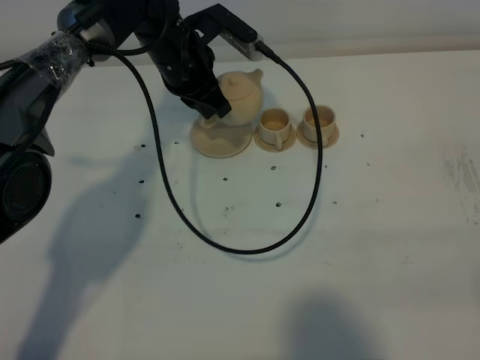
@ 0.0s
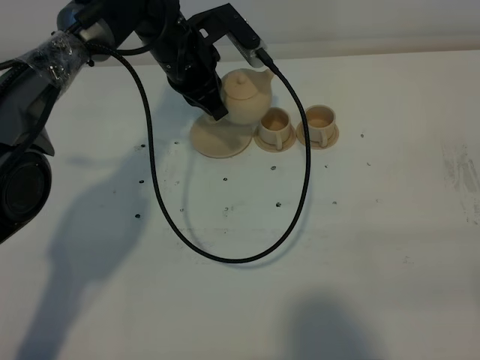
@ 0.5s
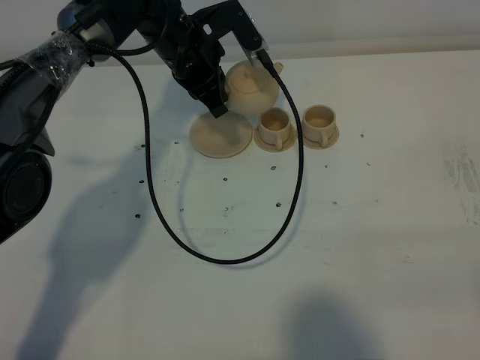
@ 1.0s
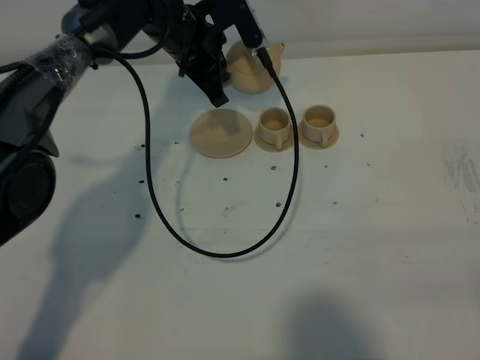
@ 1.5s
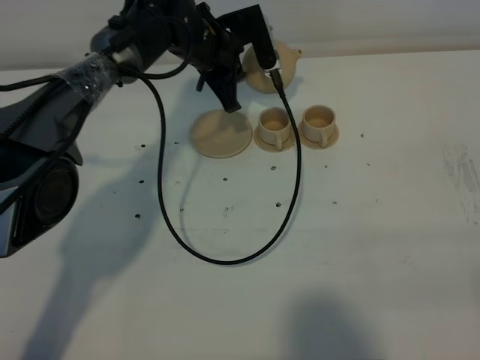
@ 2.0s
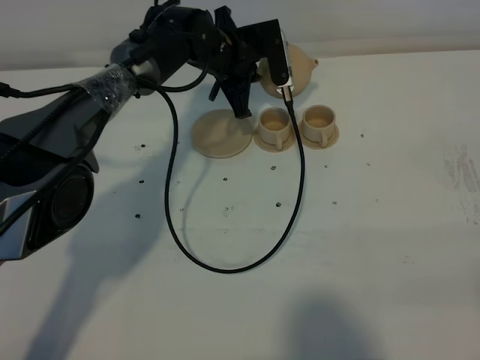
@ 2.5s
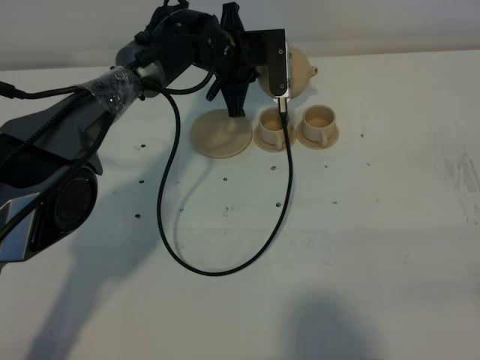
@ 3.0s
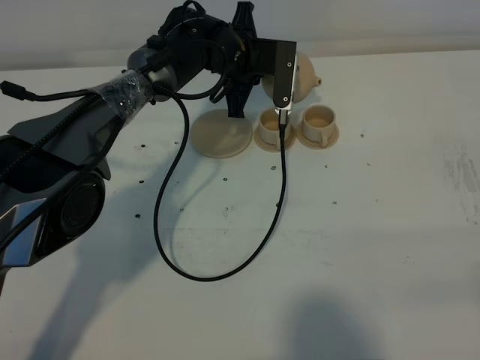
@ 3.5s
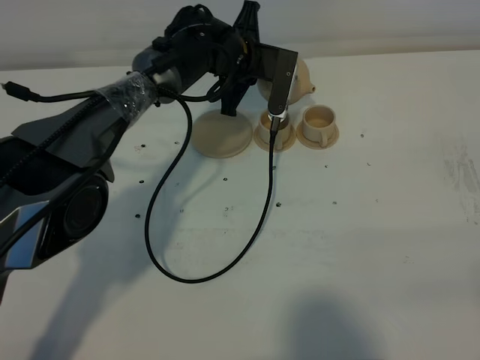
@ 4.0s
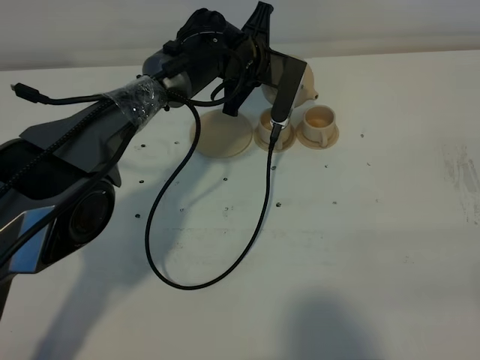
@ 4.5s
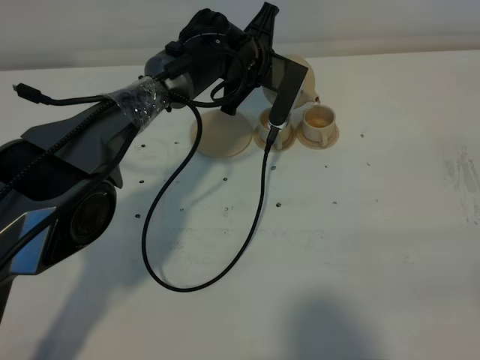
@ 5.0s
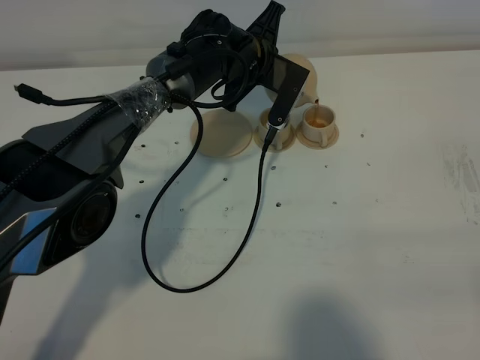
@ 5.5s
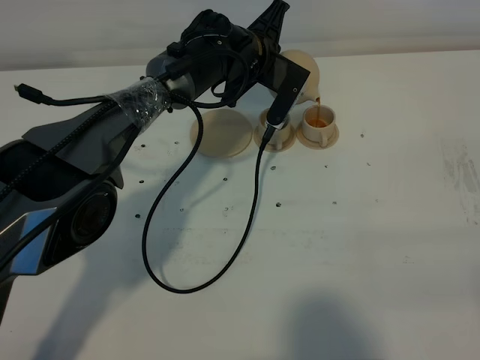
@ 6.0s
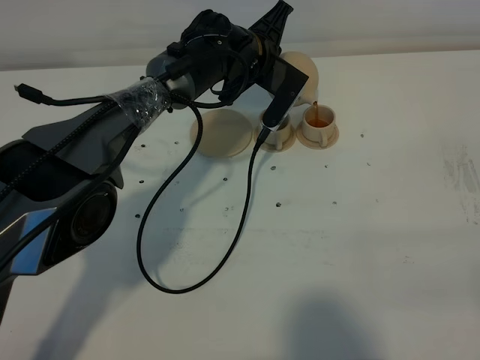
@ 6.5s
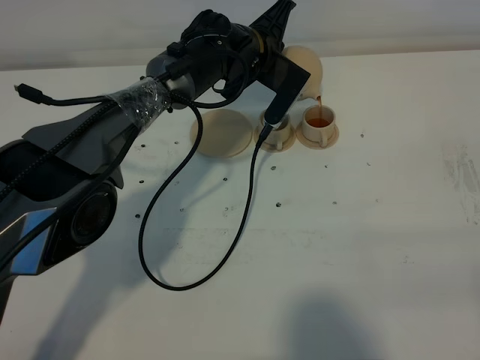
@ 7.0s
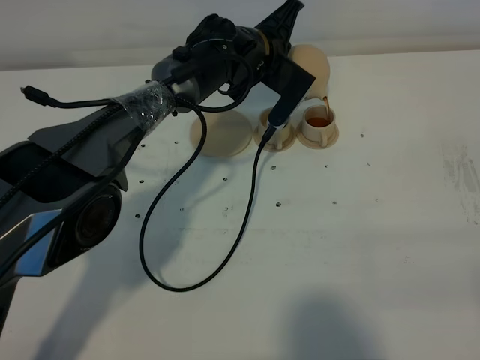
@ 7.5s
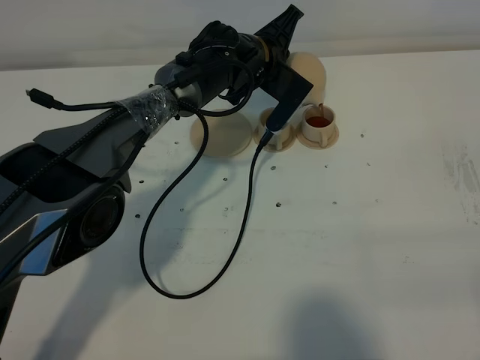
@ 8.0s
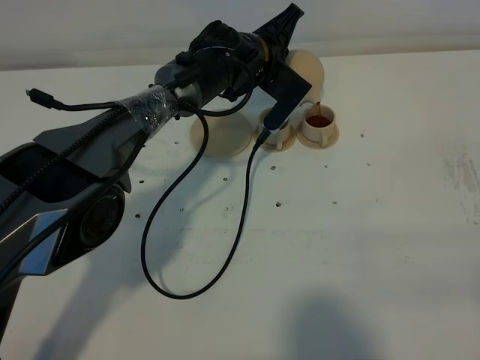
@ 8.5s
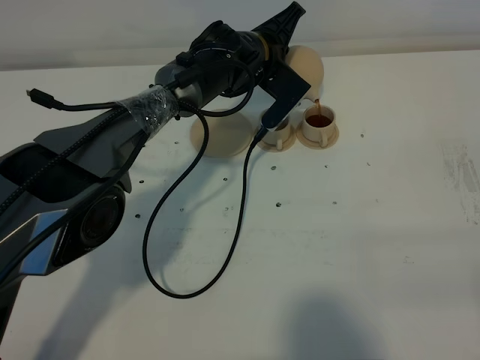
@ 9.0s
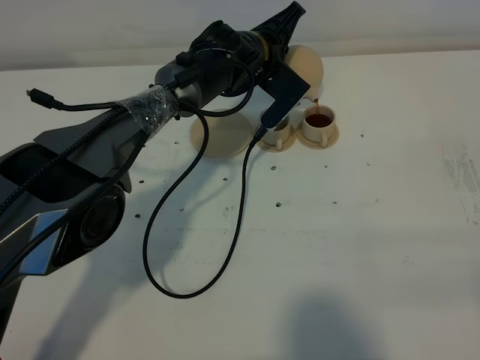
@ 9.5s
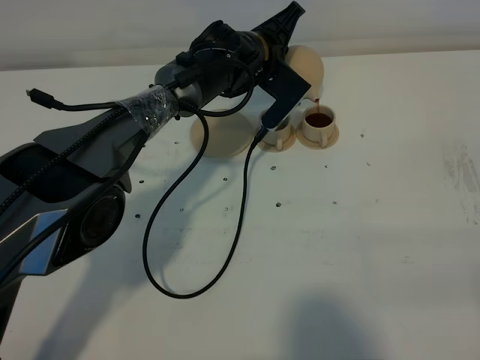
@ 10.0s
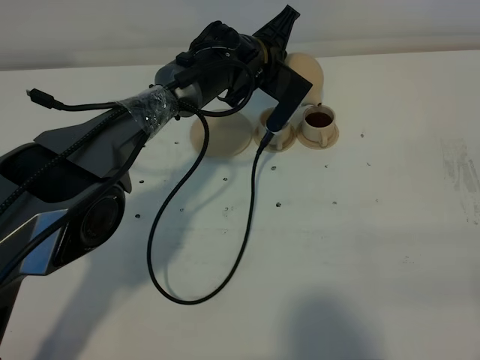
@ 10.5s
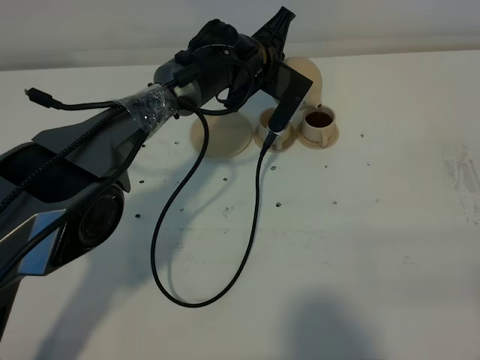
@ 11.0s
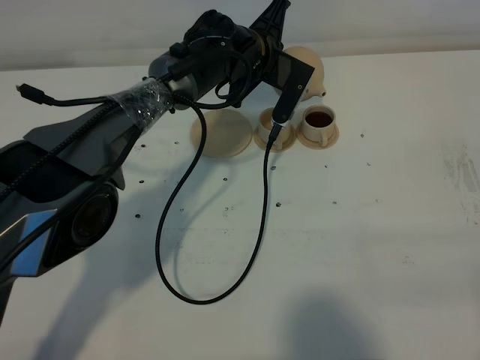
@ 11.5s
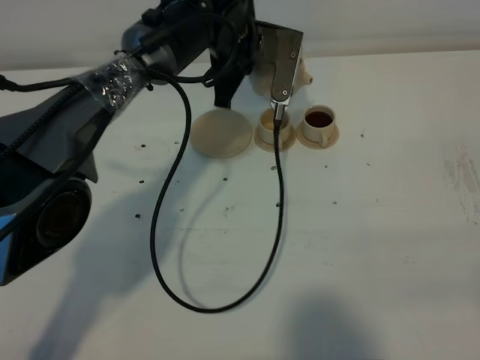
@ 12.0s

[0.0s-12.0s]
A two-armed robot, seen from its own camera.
Task of the whole recording: grasp the brown teapot and pour the tea into the two brown teacups one by one, put the brown teapot back in its original place.
0.0s to 2.0s: The left gripper changes place by roughly 5 cm.
4.0s to 6.0s: The grippers make only small movements.
6.0s to 10.0s: The grippers make only small movements.
10.0s to 12.0s: The left gripper goes about 5 cm upward.

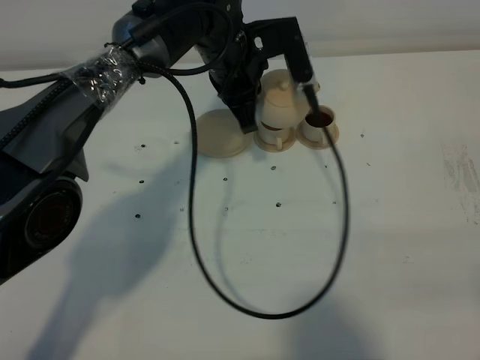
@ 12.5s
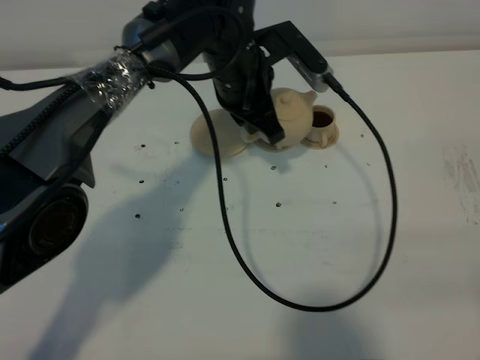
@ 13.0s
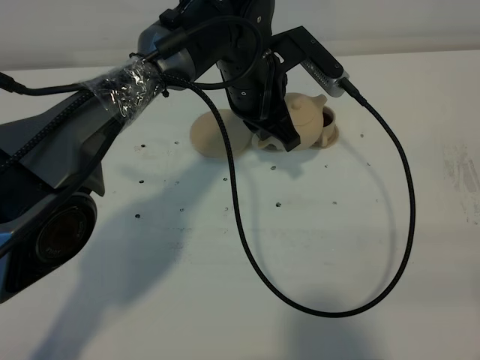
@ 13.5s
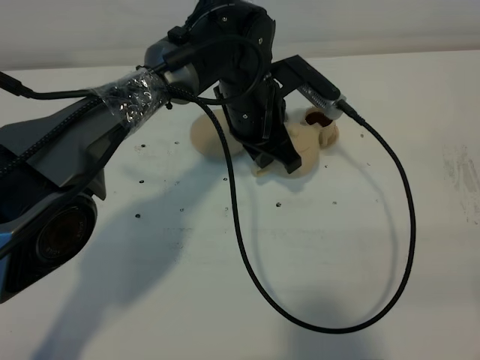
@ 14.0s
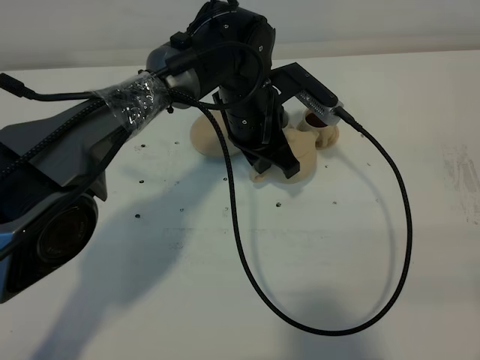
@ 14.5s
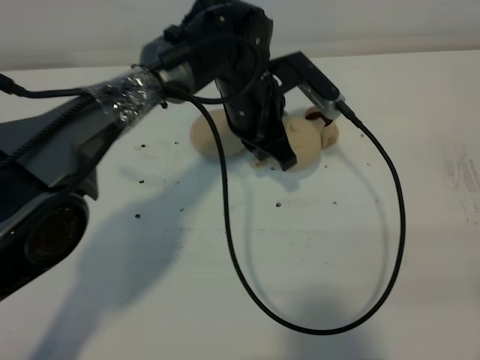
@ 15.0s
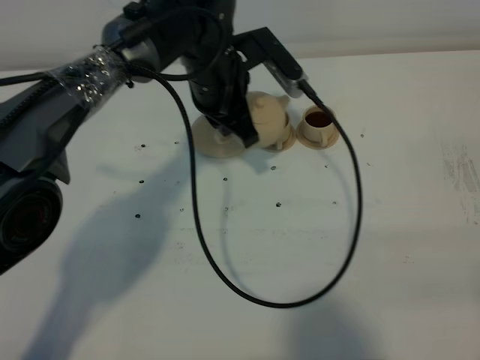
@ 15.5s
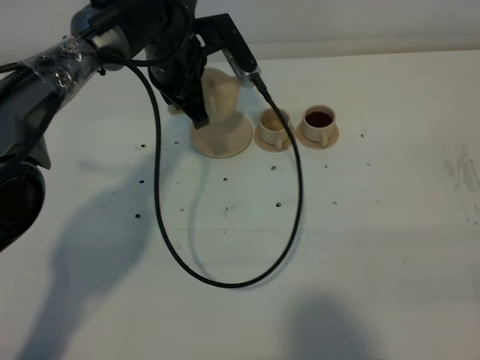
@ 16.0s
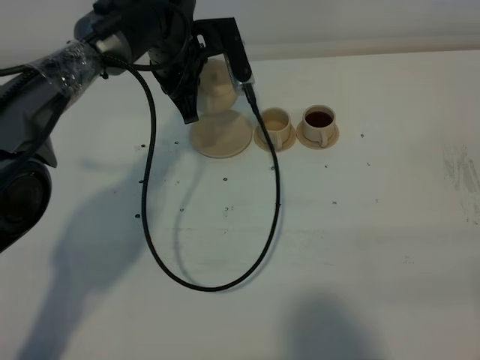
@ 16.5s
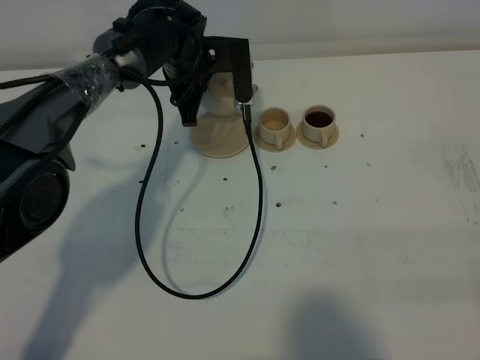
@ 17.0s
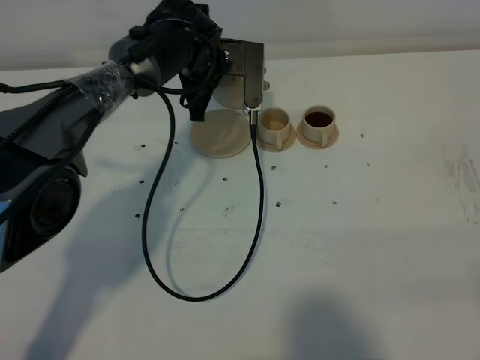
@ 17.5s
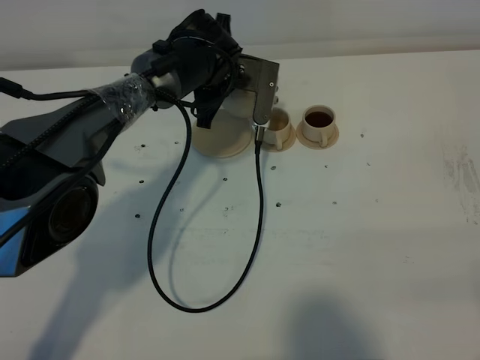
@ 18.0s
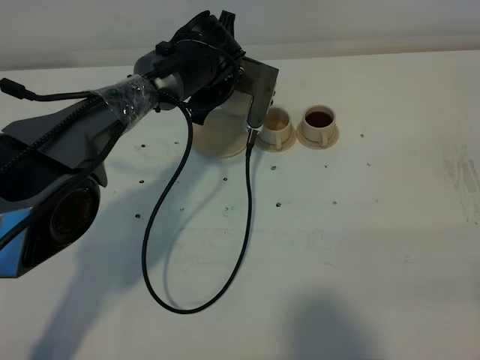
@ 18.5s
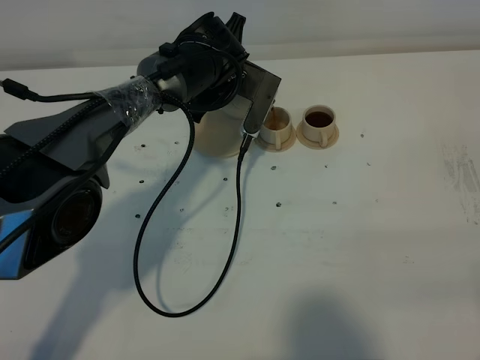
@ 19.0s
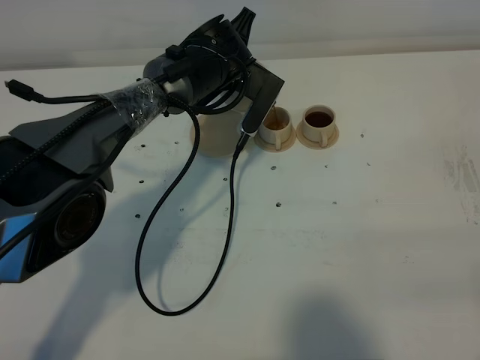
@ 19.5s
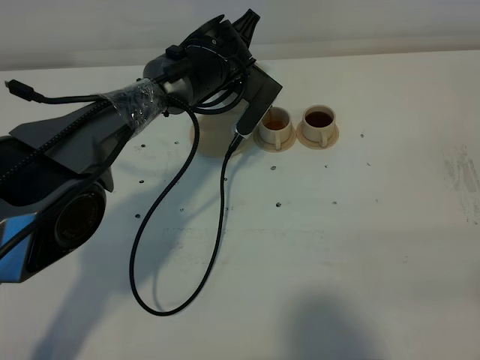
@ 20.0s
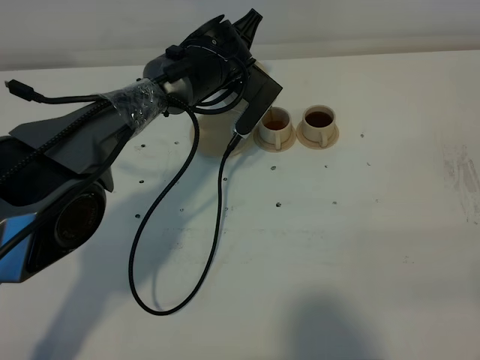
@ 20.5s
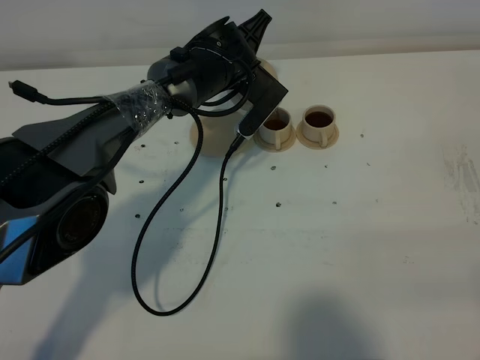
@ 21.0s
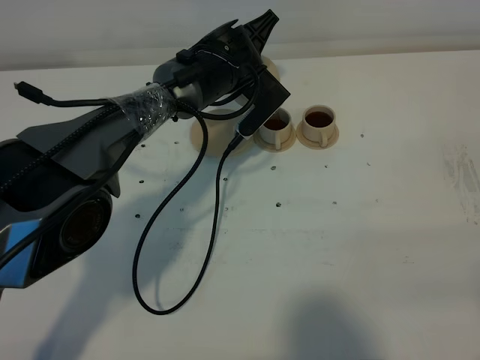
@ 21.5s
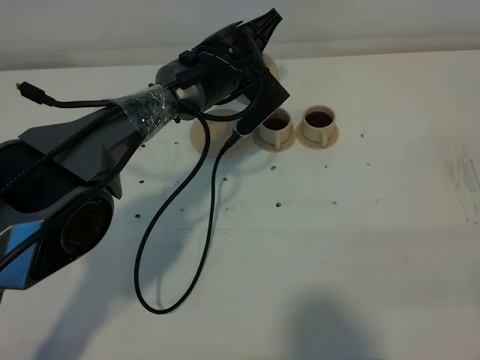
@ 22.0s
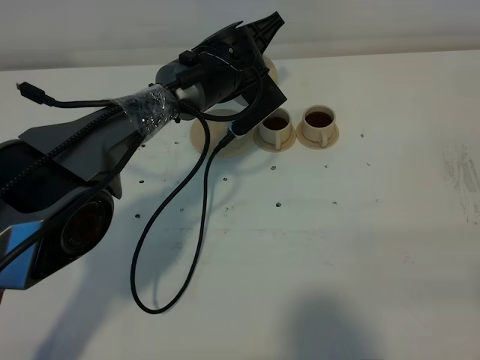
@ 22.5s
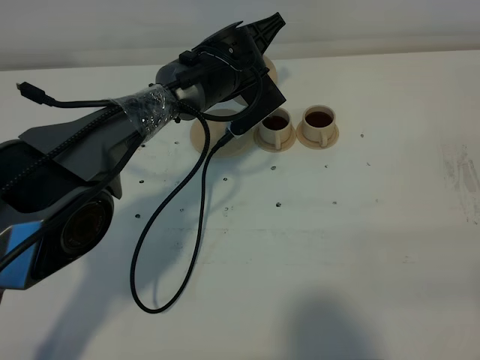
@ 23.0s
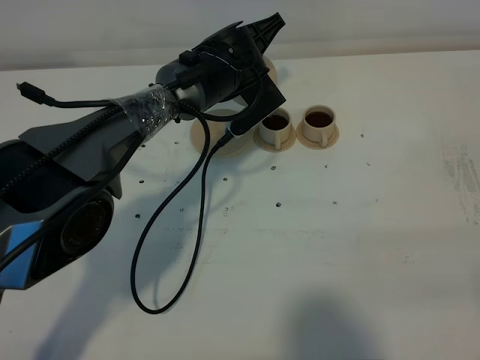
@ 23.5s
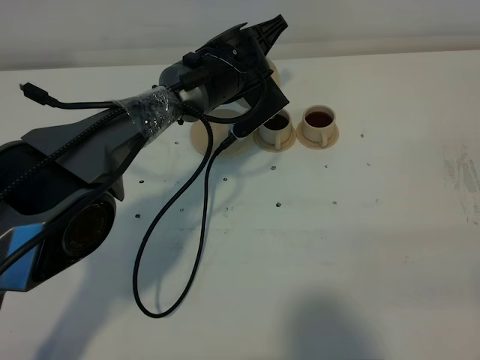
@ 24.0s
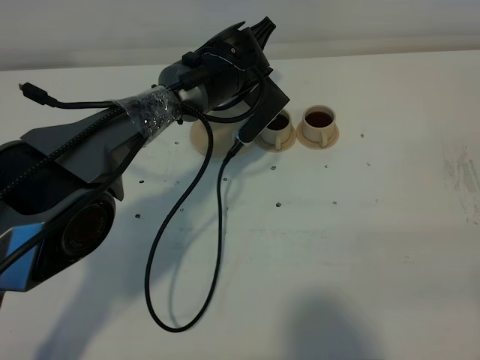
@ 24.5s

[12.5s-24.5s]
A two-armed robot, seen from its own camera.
Task of the whole recording: grasp the brown teapot and pour the tea into the two brown teacups one by one, put the brown teapot back in its original place.
12.5s to 14.5s: The left gripper ends up approximately 5 cm from where it was.
14.5s to 16.5s: The left gripper travels to the left and forward by approximately 10 cm.
16.5s to 18.5s: The left gripper ends up roughly 5 cm from where it was.
20.5s to 24.5s: The grippers move only a little.

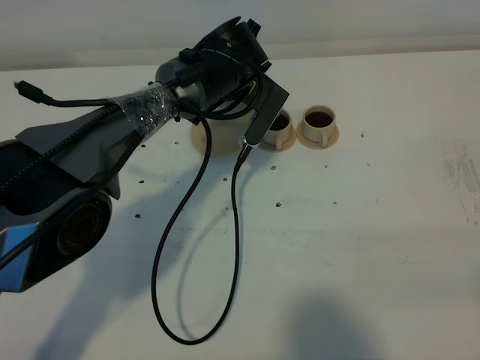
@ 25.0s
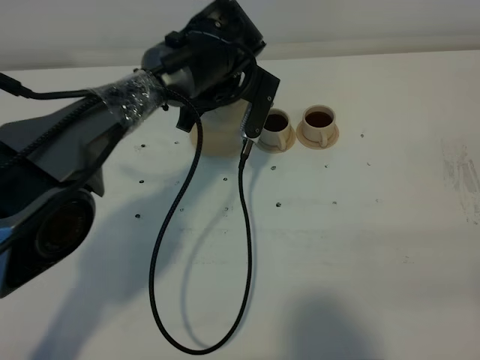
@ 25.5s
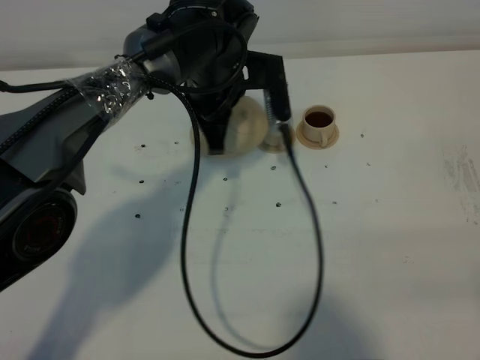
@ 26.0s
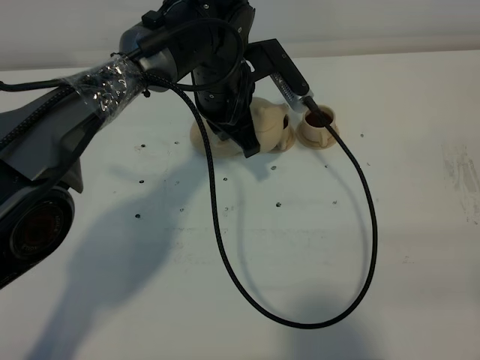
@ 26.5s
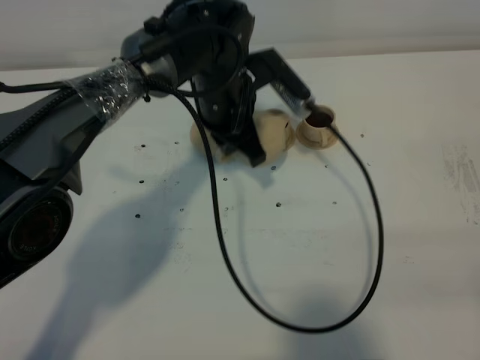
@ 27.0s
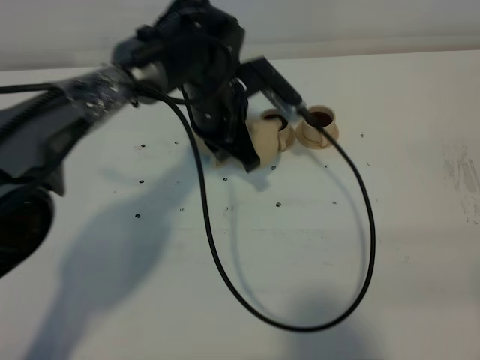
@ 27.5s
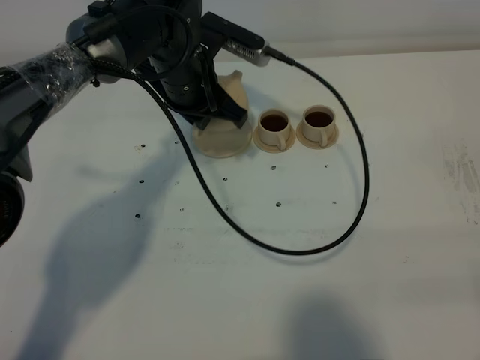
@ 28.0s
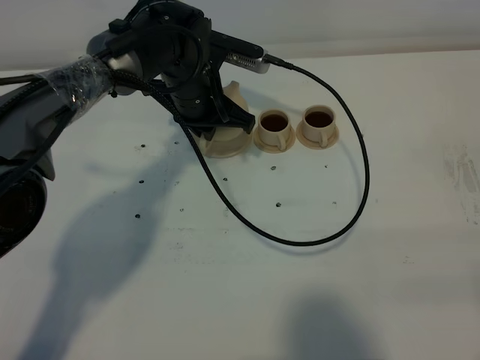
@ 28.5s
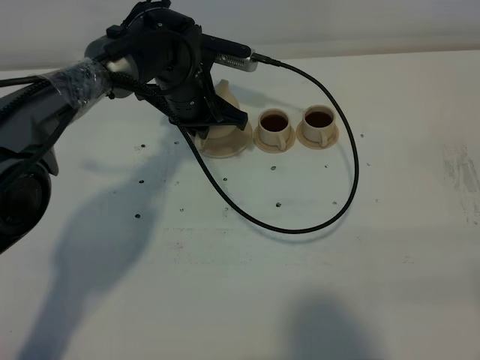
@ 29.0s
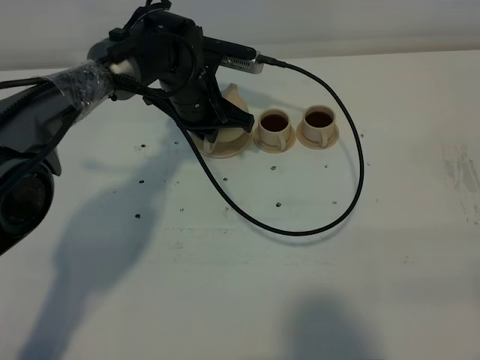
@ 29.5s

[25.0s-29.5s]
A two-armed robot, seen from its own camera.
Task of the whole recording: grasp the brown teapot and pour the tea into the two brown teacups one by one, put the brown teapot back in its original place.
25.0s to 27.0s: The left gripper goes some 5 cm backward.
27.0s to 29.5s: The left gripper changes place by approximately 10 cm.
